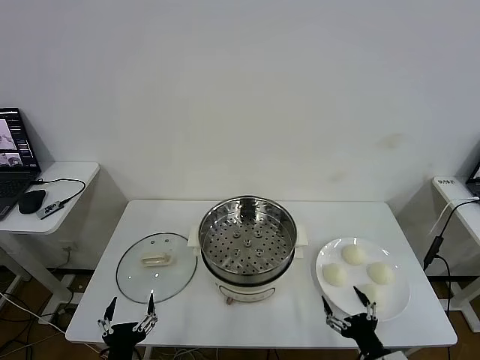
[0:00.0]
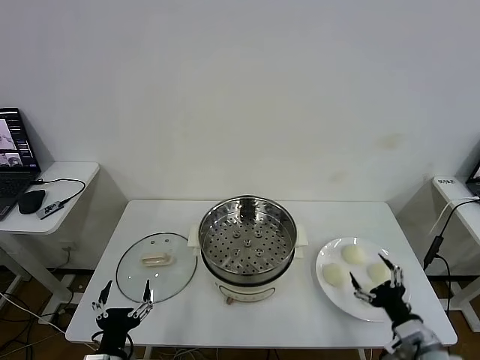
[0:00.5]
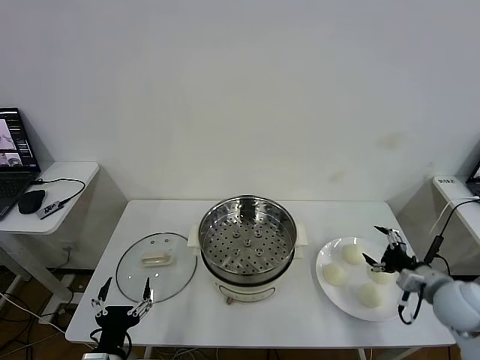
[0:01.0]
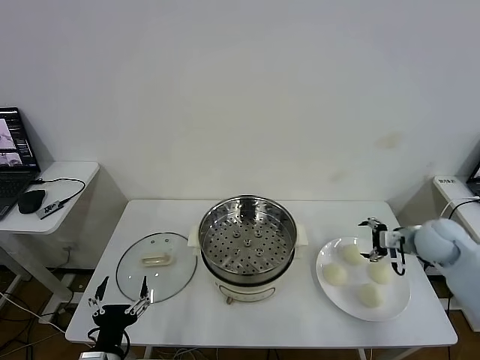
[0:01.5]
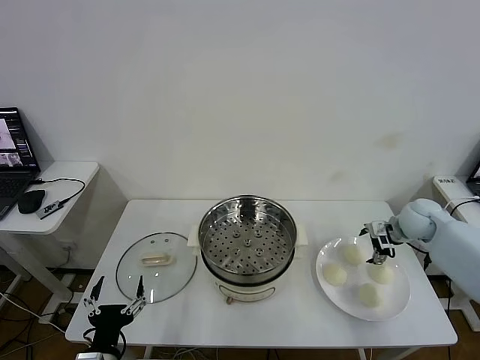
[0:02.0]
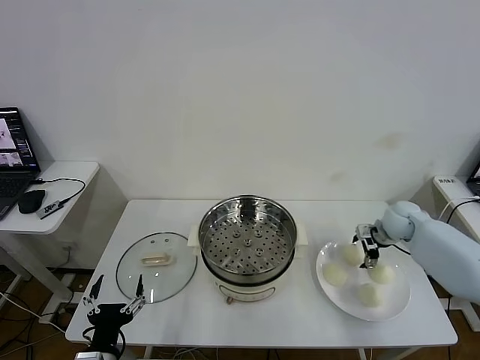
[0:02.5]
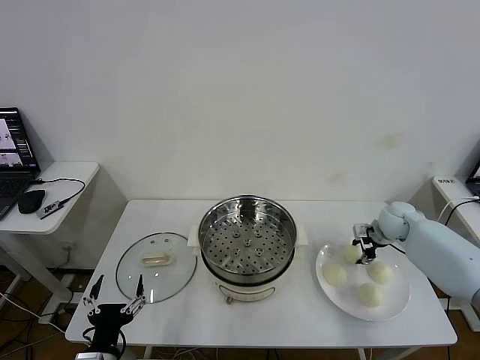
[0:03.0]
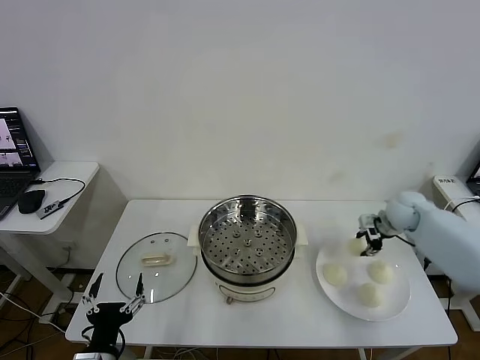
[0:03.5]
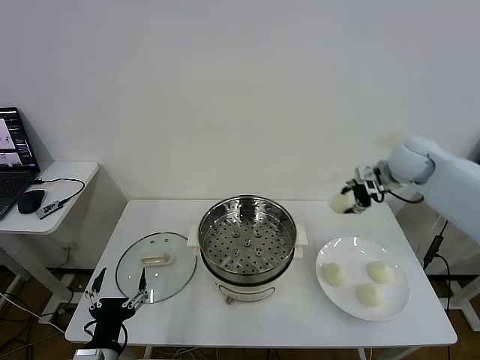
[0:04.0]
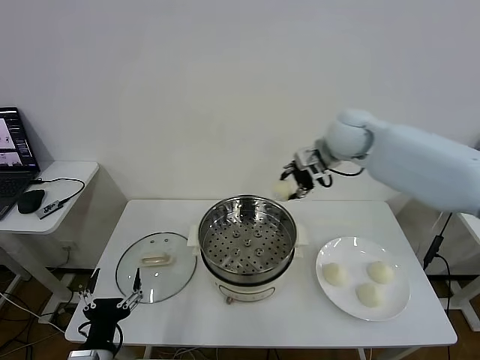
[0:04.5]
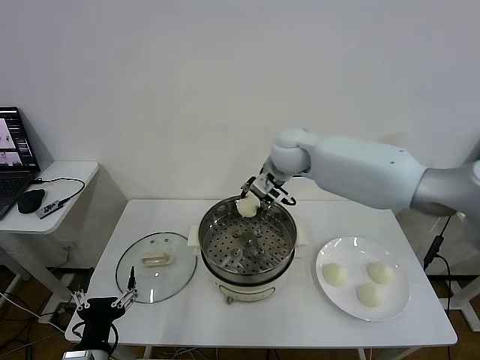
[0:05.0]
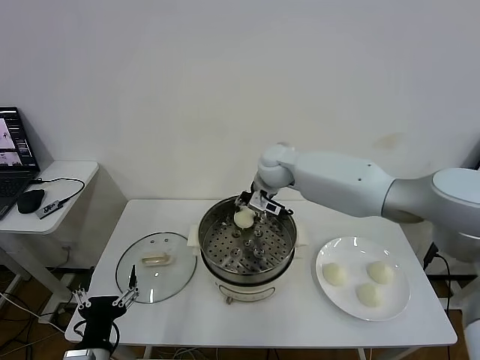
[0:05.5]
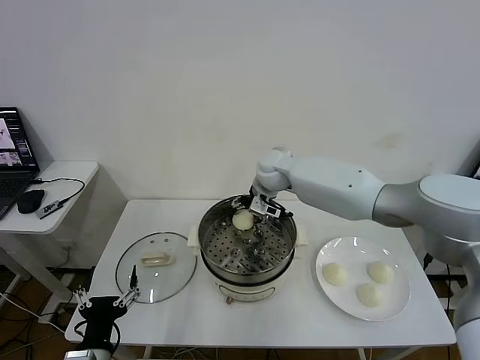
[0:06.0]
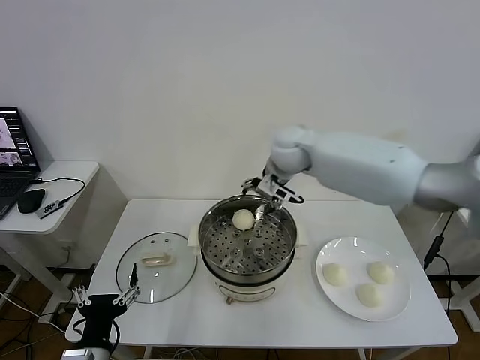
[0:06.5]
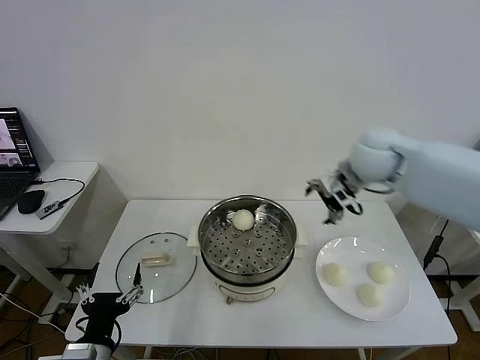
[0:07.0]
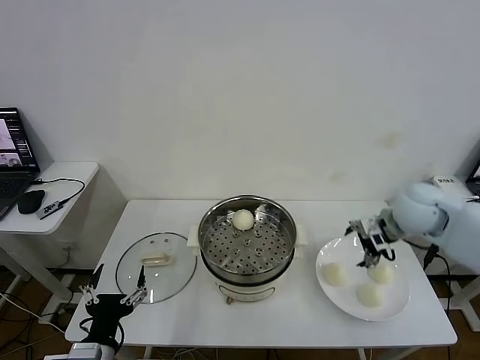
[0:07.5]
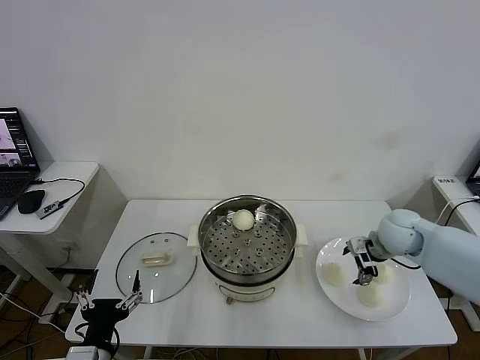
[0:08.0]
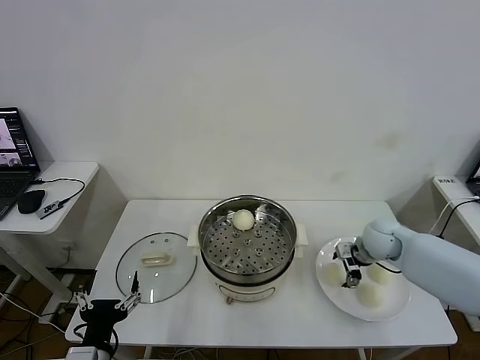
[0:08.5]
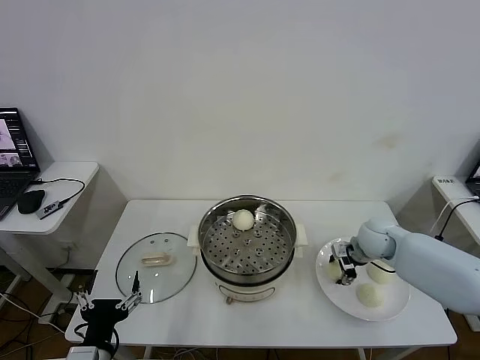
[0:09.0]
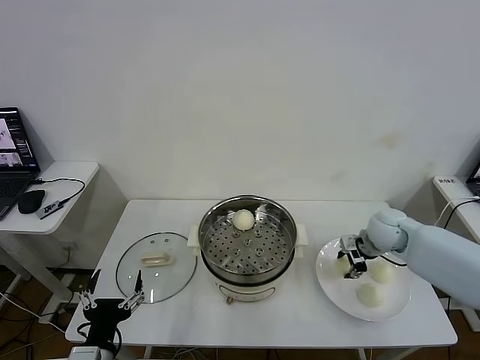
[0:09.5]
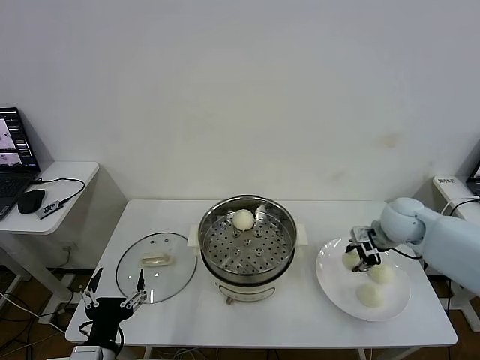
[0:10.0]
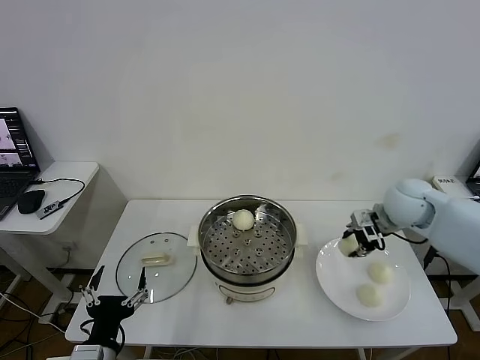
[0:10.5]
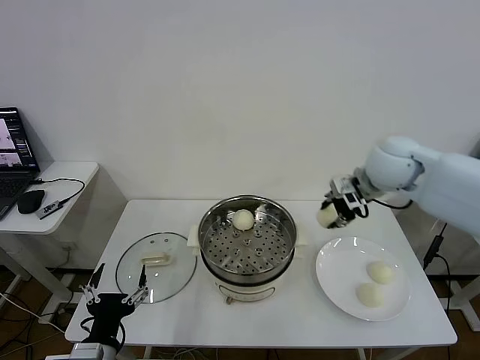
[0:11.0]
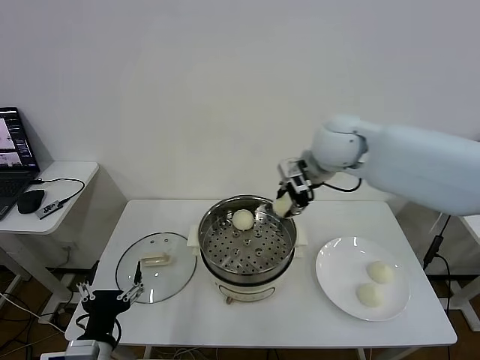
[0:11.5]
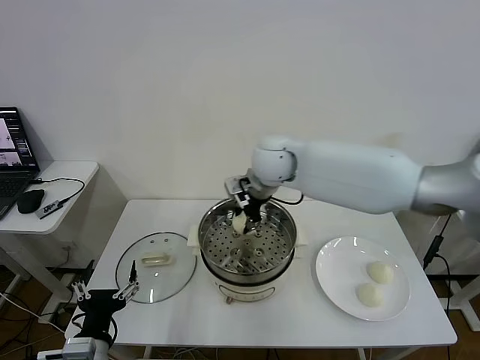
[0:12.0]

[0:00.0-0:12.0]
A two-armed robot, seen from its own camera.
Task of the whole recording: take steamed baozi put them in steamer then cover it.
Step, 0:00.0 to 0:03.0: Grasp the baozi in the plate with right gripper.
Step, 0:03.5 to 0:06.0: Place the baozi on the steamer with right gripper.
Step, 0:06.5 to 0:08.5: Grasp the baozi in the plate with right gripper.
0:02.0 to 0:04.0: The right gripper travels upward and to the left by approximately 15 cm, and closes its fingers.
0:04.0 to 0:06.0: The right gripper shifts some 30 cm to the left, and opens up.
0:06.0 to 0:08.0: The right gripper heads to the right and backward, covering some 30 cm.
0:08.0 to 0:10.0: The right gripper moves approximately 5 cm downward and comes back, and closes its fingers.
0:10.0 to 0:12.0: The right gripper shifts some 35 cm to the left and upward.

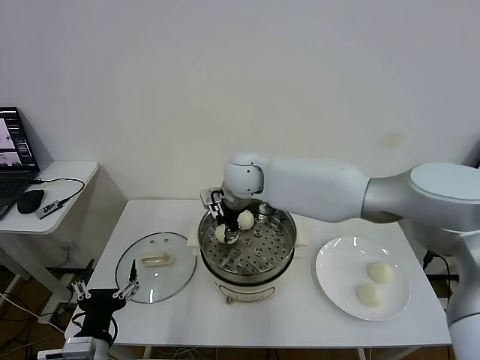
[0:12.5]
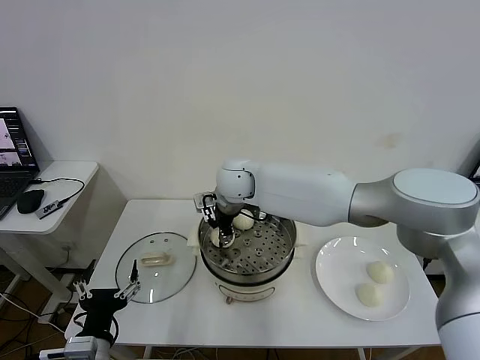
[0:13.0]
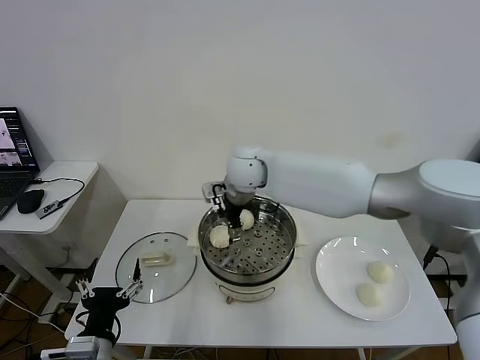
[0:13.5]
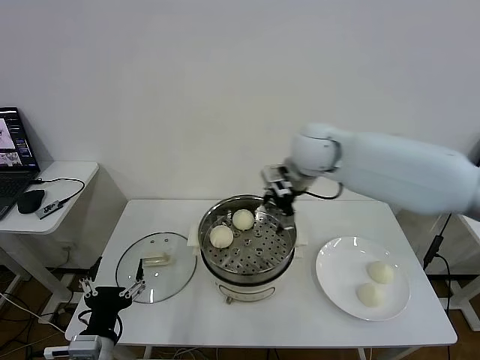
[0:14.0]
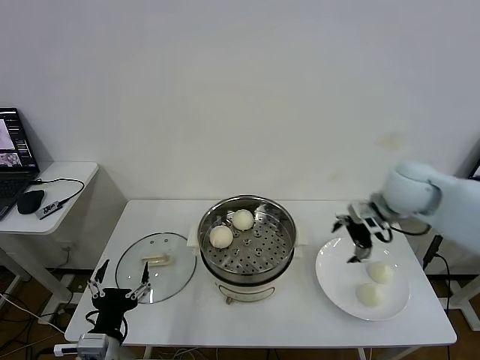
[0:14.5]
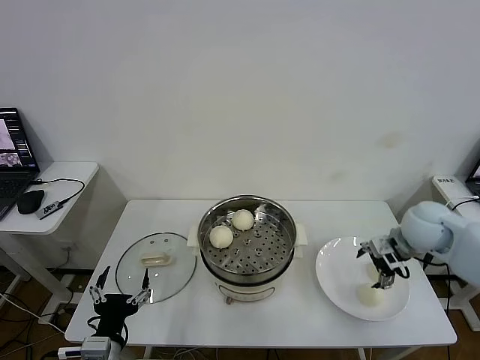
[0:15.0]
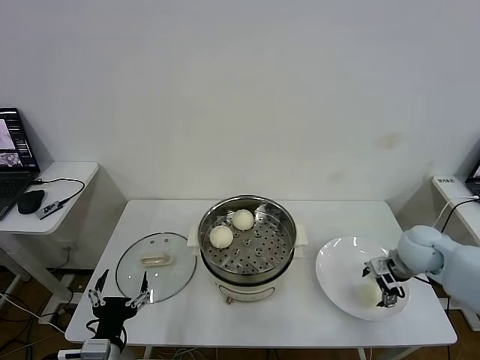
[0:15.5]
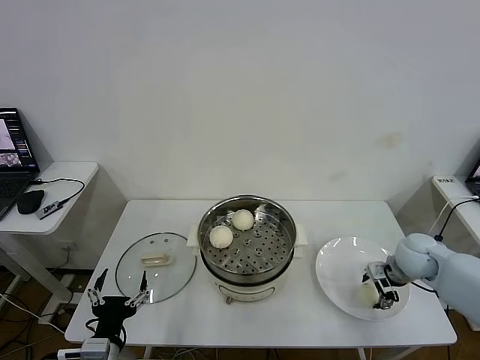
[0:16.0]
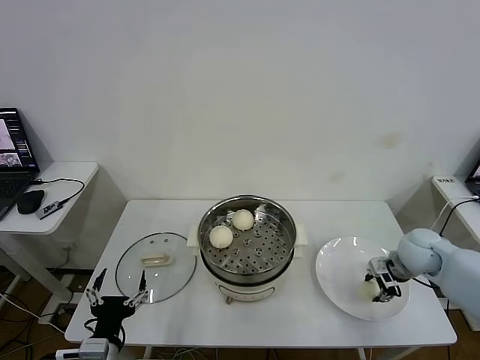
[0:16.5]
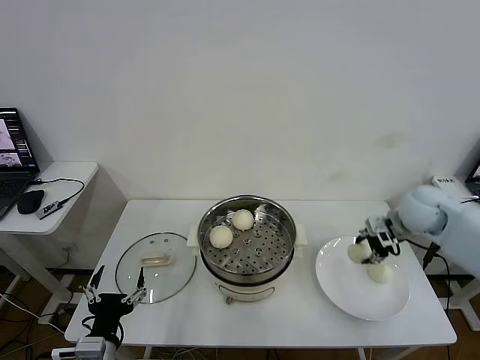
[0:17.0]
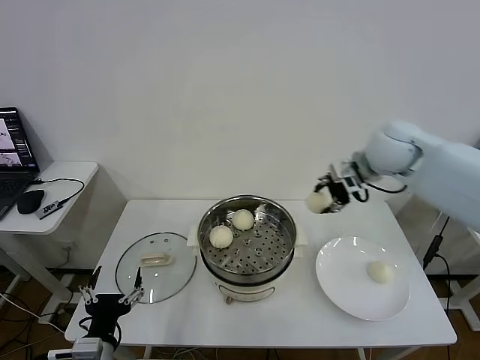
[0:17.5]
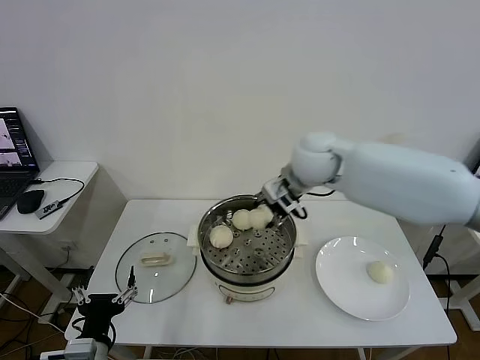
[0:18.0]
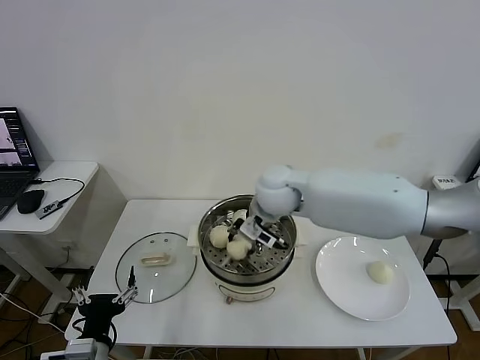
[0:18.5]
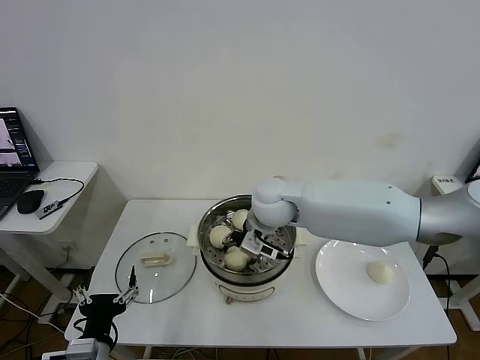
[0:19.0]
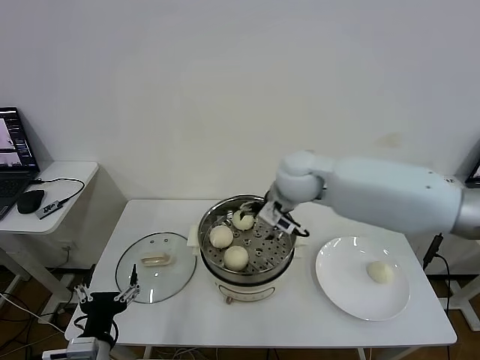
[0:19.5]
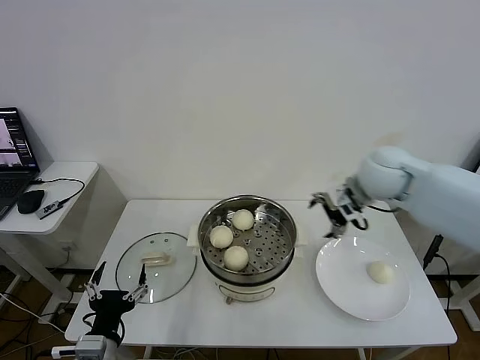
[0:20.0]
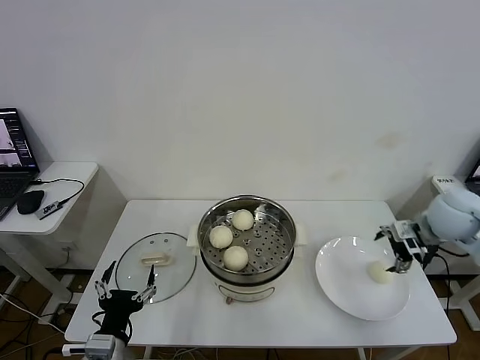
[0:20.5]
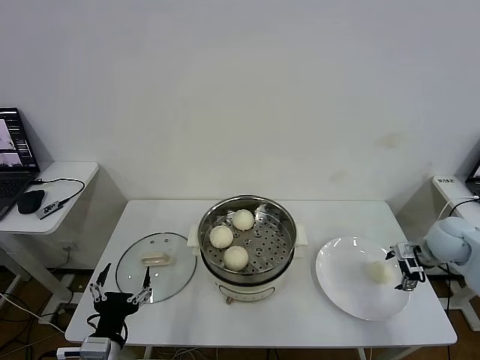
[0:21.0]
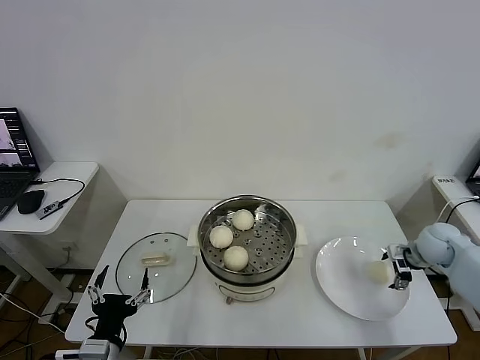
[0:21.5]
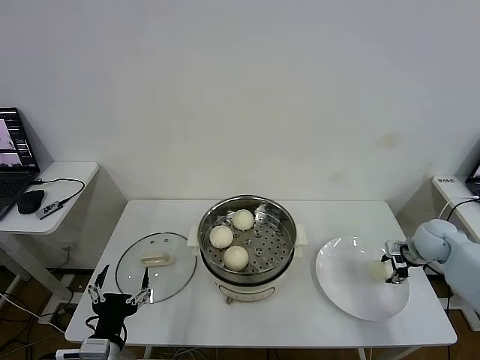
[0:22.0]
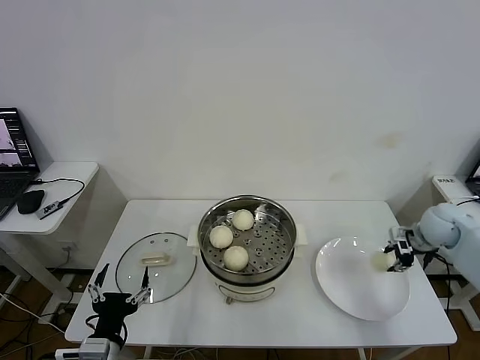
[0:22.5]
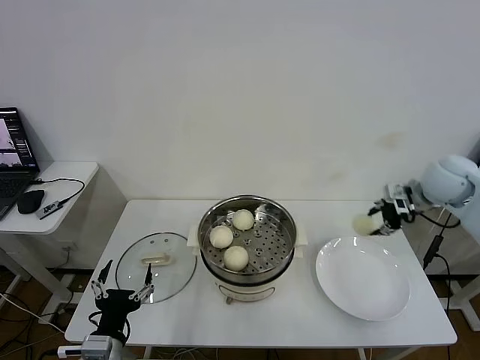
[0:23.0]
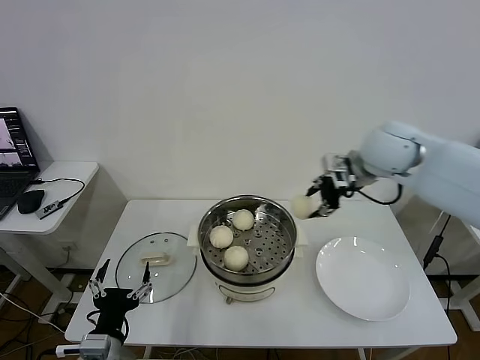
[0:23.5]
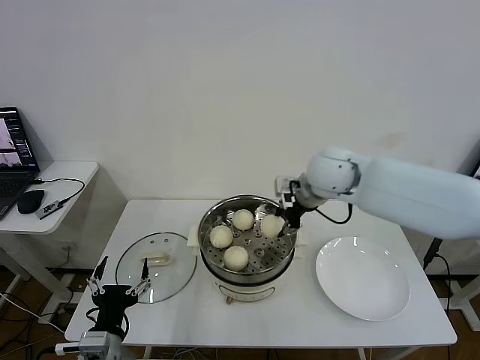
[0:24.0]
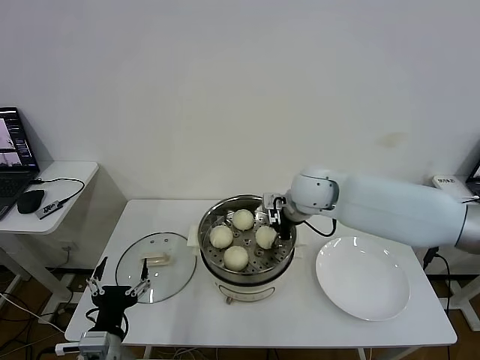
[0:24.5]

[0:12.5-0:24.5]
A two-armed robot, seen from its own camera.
Task of the whole recording: take steamed baozi put them in steamer then cover it.
Step, 0:13.5 to 0:16.0: Grasp the baozi in the plate with right gripper.
Step, 0:17.0 to 0:19.0: Place the baozi on the steamer with right gripper.
Step, 0:19.5 to 0:22.0: Grasp the baozi in the plate with right gripper.
0:12.5 to 0:14.5: The right gripper shifts roughly 30 cm to the right, and opens up.
0:14.5 to 0:16.5: The right gripper travels downward and to the right by some 20 cm, and closes up.
0:16.5 to 0:18.5: The right gripper travels to the left and upward by about 35 cm.
0:18.5 to 0:20.5: The right gripper is displaced to the right by roughly 35 cm, and opens.
0:20.5 to 0:22.5: The right gripper moves downward and to the right, about 10 cm, and closes.
0:22.5 to 0:24.5: The right gripper goes roughly 30 cm to the left.

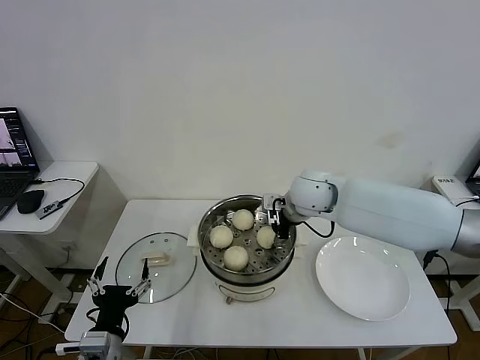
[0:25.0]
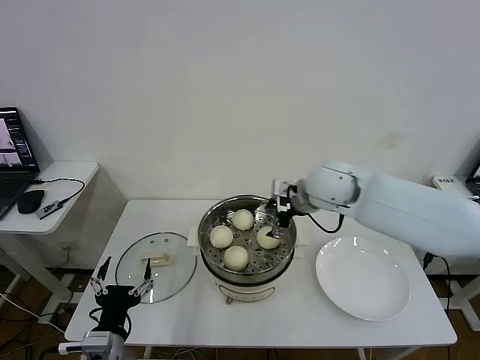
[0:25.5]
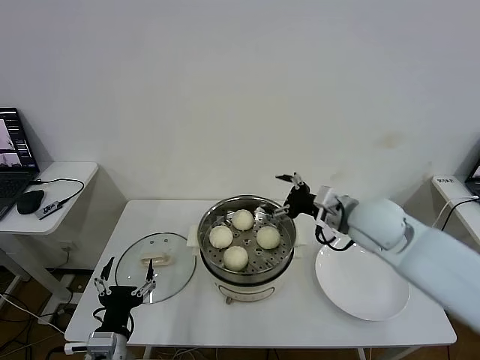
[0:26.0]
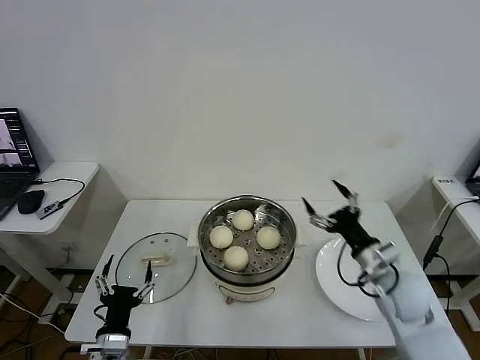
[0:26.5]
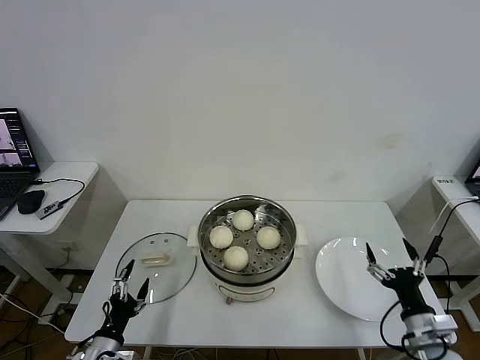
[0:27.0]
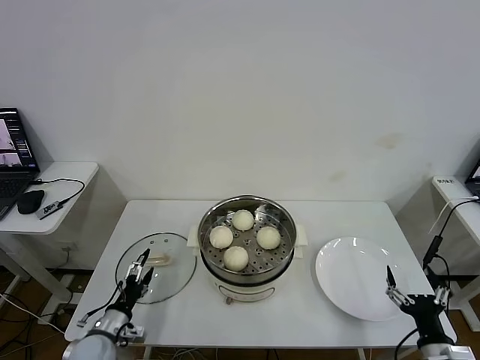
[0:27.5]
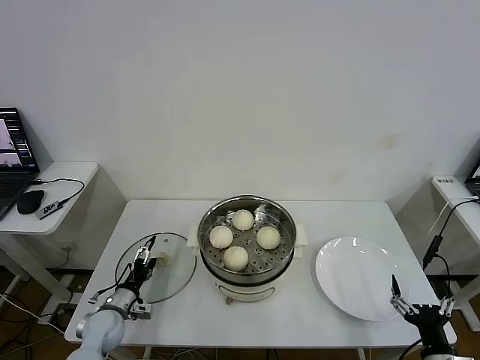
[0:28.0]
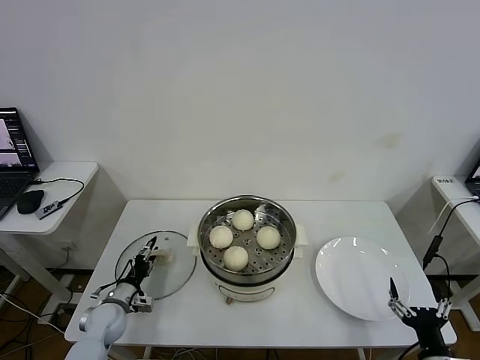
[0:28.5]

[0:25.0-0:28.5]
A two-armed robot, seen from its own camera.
Task of the whole recording: take steamed baozi put them in steamer then cover it.
0:25.0 to 0:27.0: The left gripper travels downward and to the left by approximately 10 cm. The right gripper goes approximately 40 cm backward, to the right and downward, and opens up.
0:27.0 to 0:28.5: The right gripper travels backward by about 10 cm. Meanwhile the left gripper heads forward, covering roughly 15 cm, and closes its fingers.
